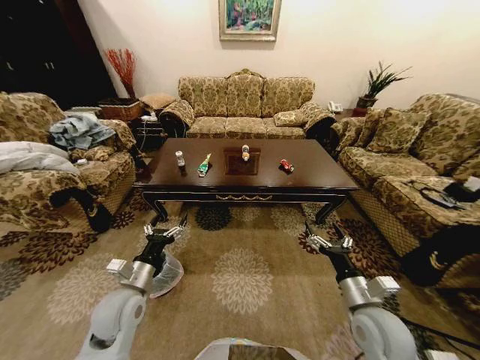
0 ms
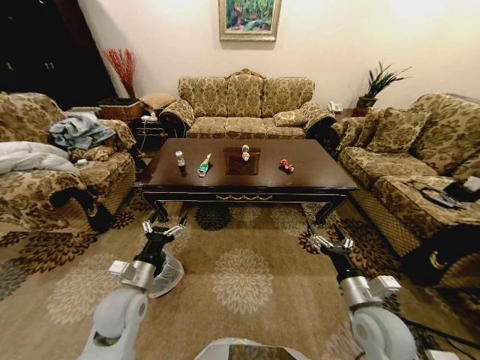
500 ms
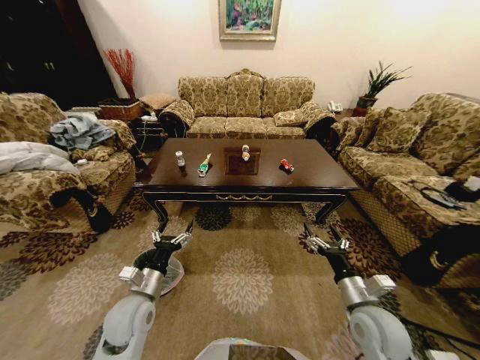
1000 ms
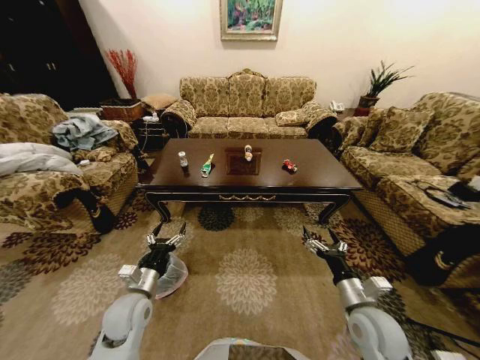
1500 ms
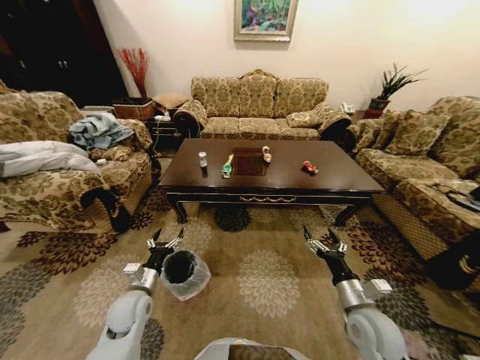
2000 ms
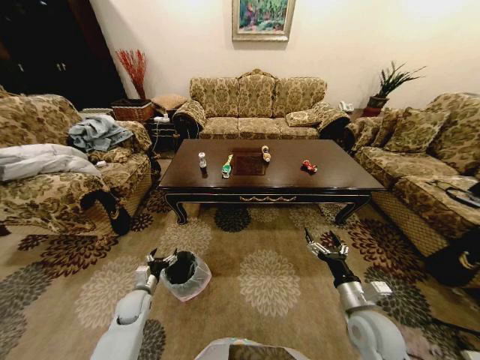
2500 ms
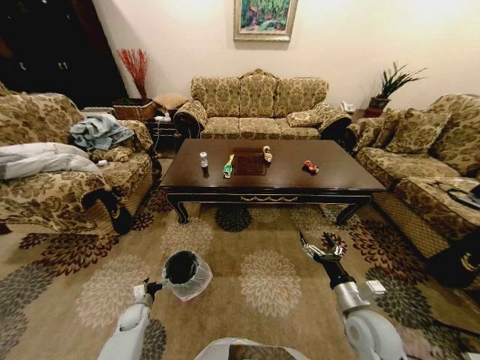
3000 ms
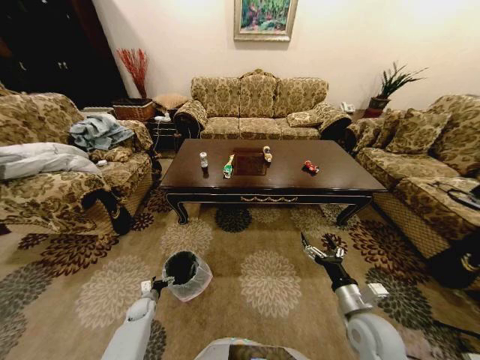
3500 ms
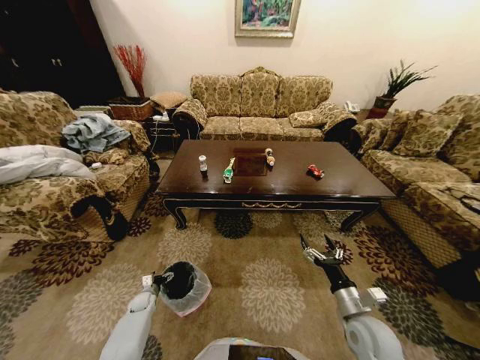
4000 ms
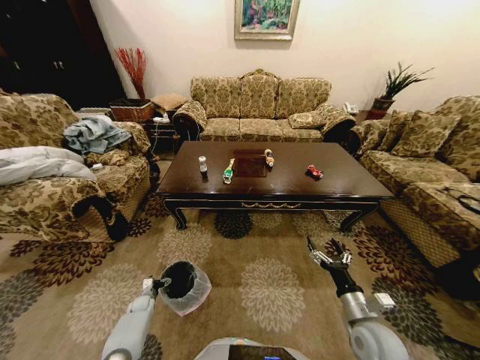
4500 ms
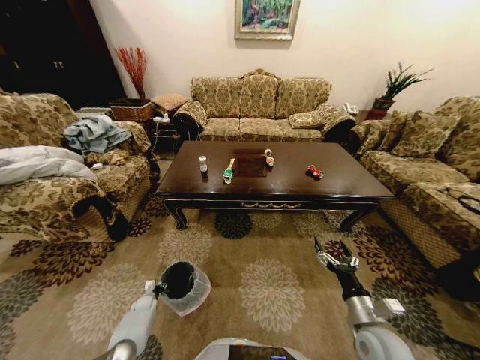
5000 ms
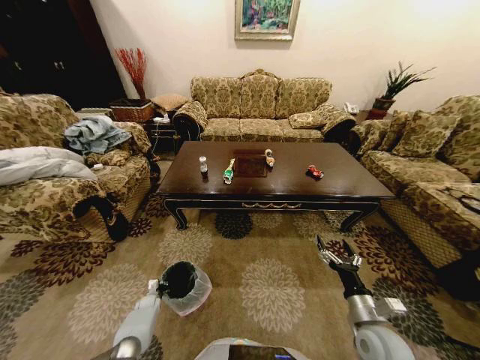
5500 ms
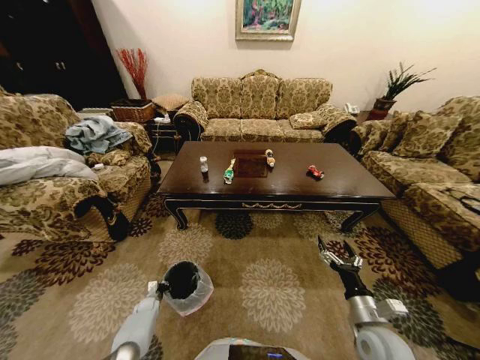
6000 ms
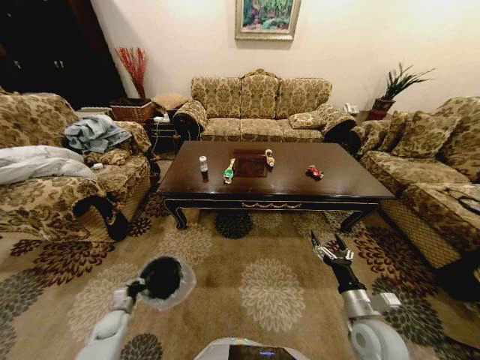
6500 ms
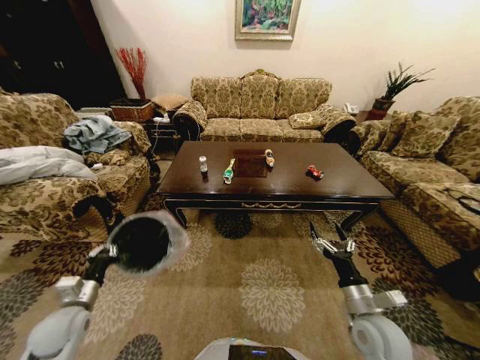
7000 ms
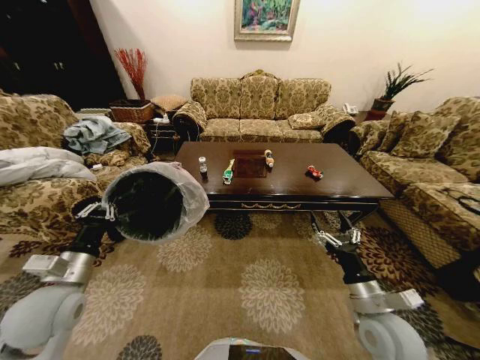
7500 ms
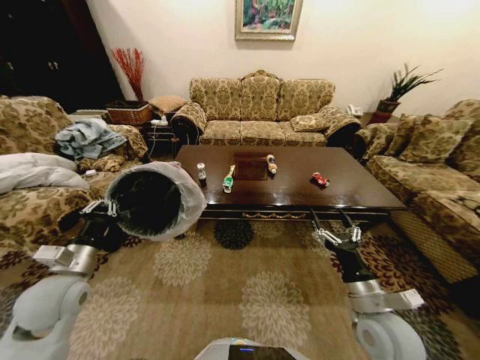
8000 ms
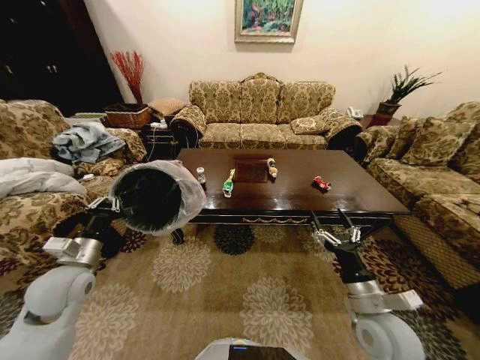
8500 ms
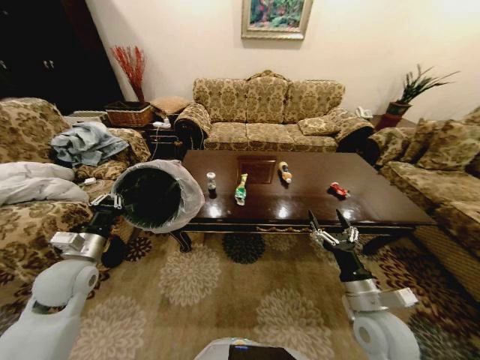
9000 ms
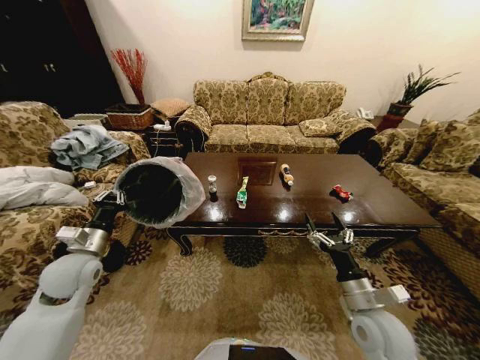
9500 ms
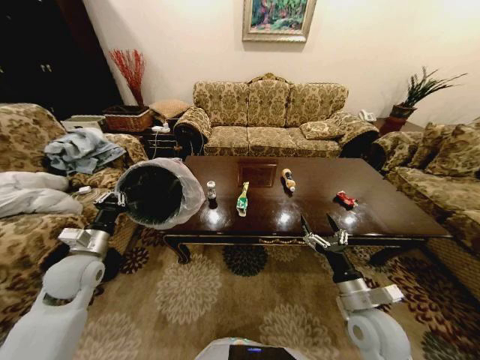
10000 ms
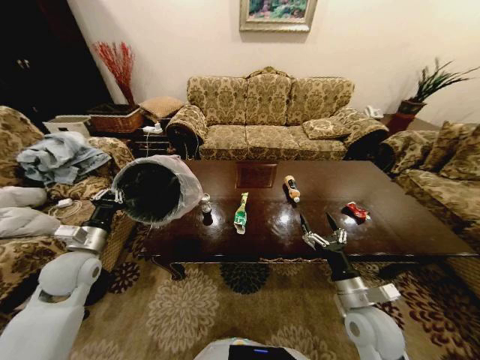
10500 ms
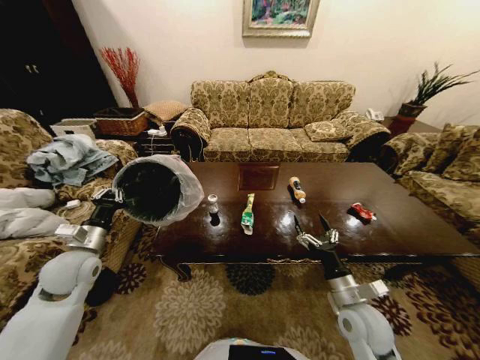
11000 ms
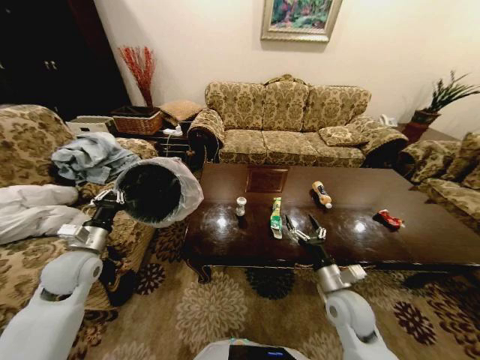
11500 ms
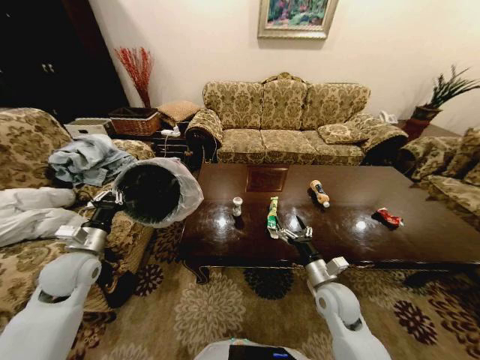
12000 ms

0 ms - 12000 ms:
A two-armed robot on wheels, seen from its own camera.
Task of the whole recording: Move to the front of the table and place the trash on the table into the trash bin.
2000 ms - 4000 ms: The left gripper heads downward, covering approximately 25 cm.
4000 ms - 6000 ms: The left gripper shifts by approximately 5 cm, and closes.
6000 ms - 8000 ms: The left gripper is displaced upward by some 40 cm, while the right gripper goes roughly 10 cm upward.
8000 ms - 10000 ms: The left gripper shifts roughly 5 cm forward.
10000 ms - 12000 ms: The right gripper travels forward by some 5 cm.

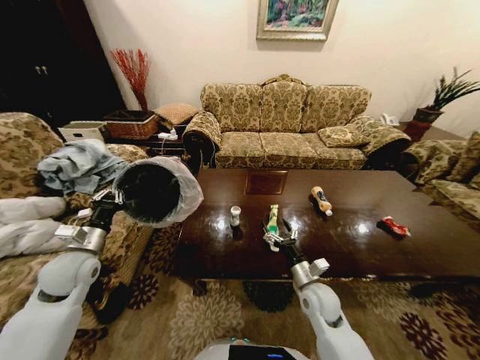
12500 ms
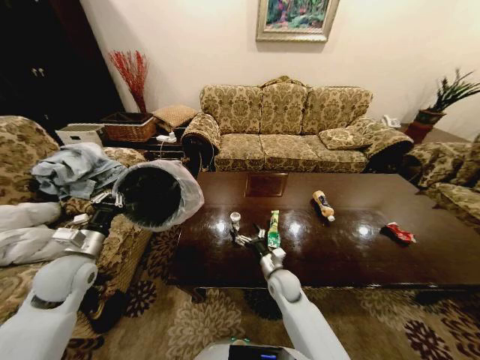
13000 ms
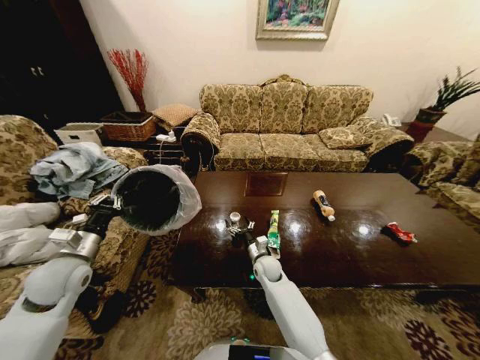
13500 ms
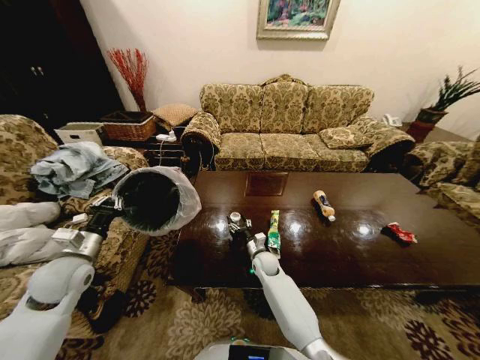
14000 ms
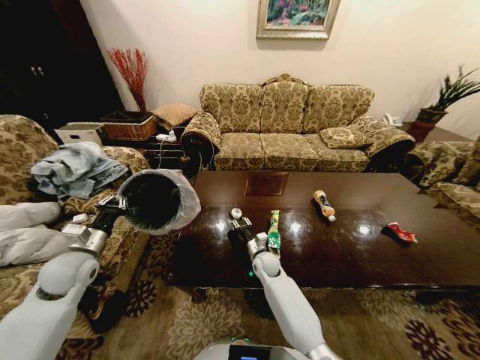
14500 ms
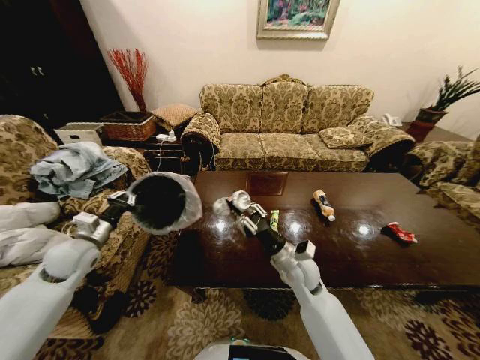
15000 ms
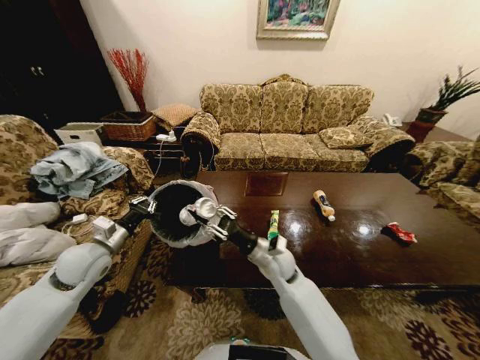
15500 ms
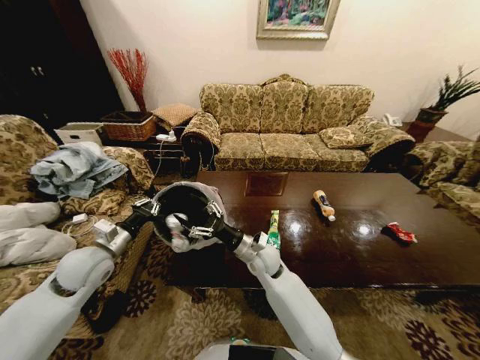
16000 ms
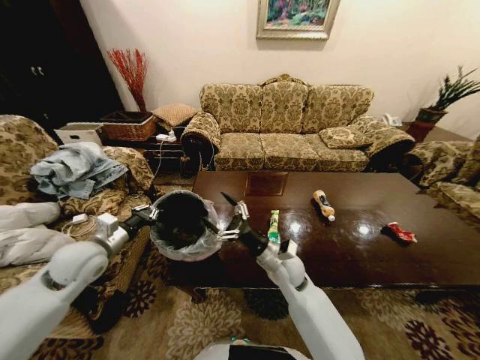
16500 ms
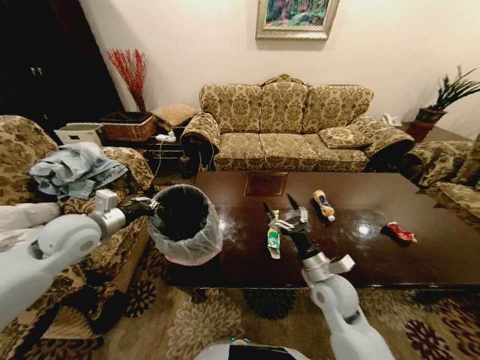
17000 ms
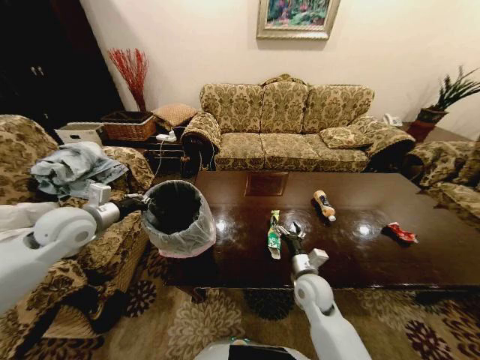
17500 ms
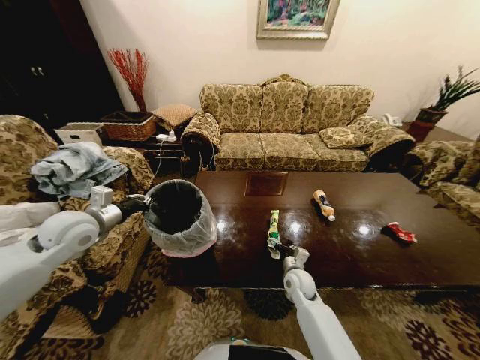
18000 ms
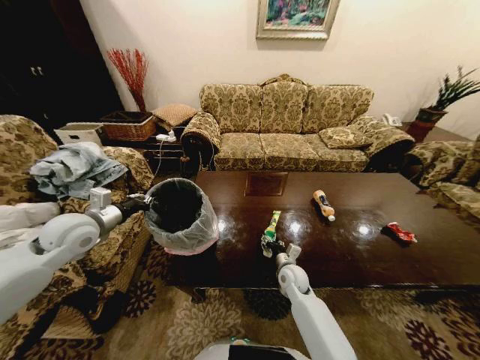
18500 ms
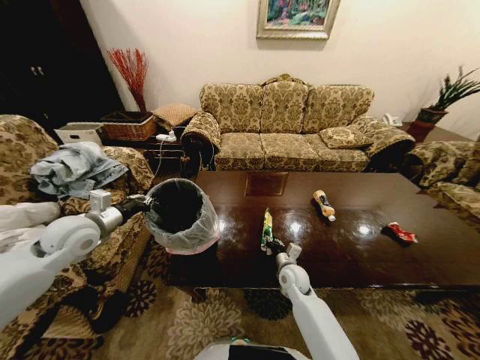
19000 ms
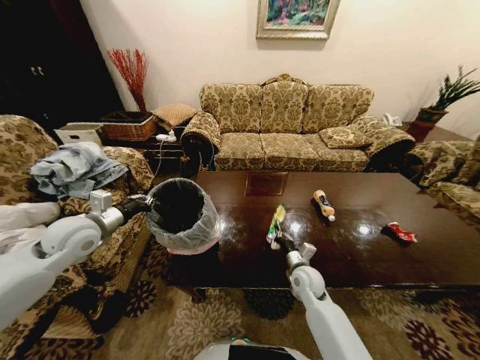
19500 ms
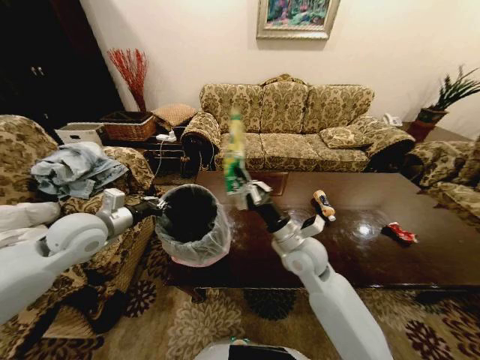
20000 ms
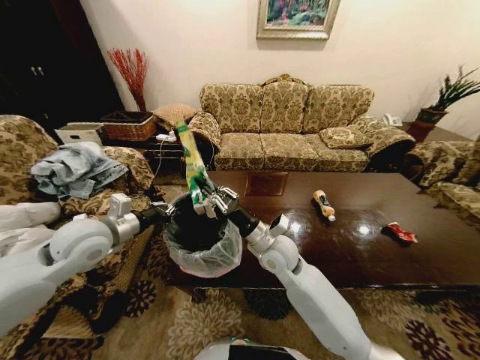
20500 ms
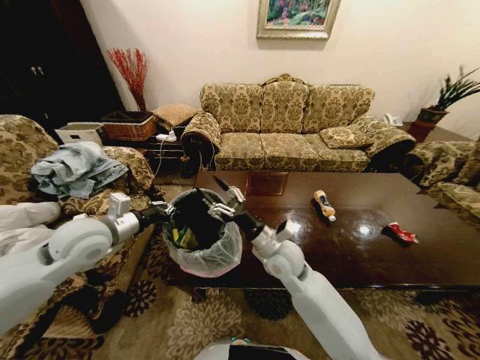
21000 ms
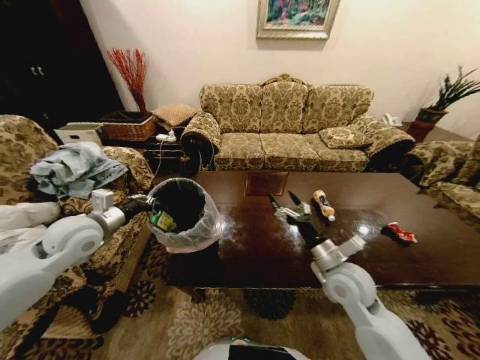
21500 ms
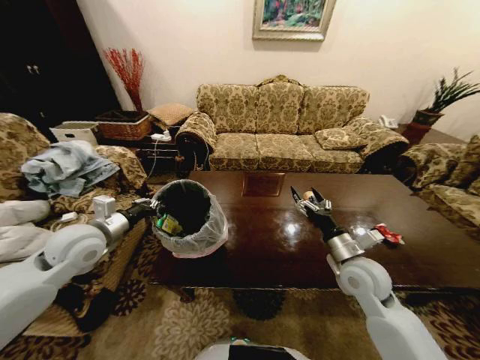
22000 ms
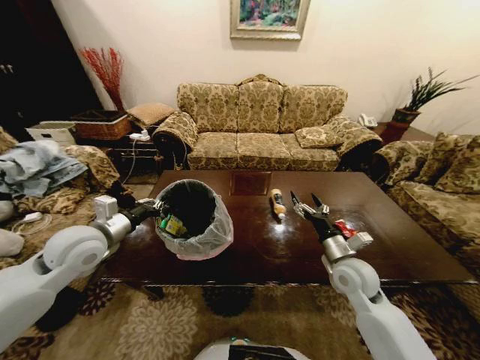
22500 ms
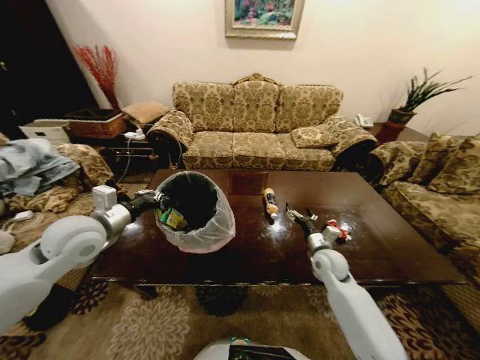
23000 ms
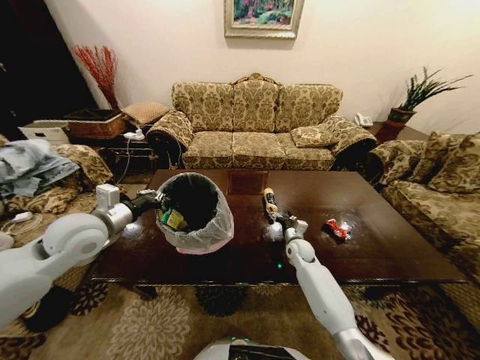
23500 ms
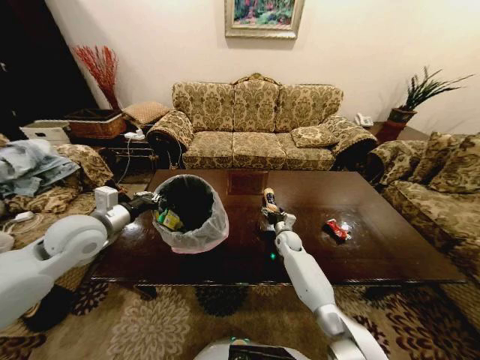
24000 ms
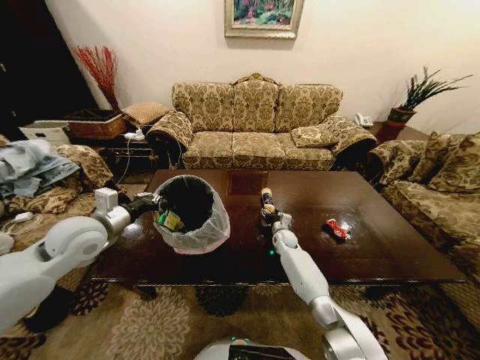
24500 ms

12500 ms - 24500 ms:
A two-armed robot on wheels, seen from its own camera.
Task of the whole recording: Move to the front of the table and place the trash on the table into the trash bin.
12500 ms - 14500 ms: The right gripper shifts approximately 20 cm forward, to the left and downward, and closes up.
14500 ms - 16500 ms: The right gripper goes some 15 cm upward and backward, and opens its fingers, while the left gripper moves roughly 5 cm.
16500 ms - 18500 ms: The right gripper travels downward and to the right by approximately 15 cm. The left gripper moves approximately 5 cm.
18500 ms - 20500 ms: The right gripper moves upward and to the left, approximately 20 cm, and closes up. Meanwhile the left gripper travels to the right by approximately 5 cm.
20500 ms - 22500 ms: The right gripper shifts some 20 cm to the right, and opens its fingers.
22500 ms - 24500 ms: The right gripper goes some 30 cm forward, downward and to the left.

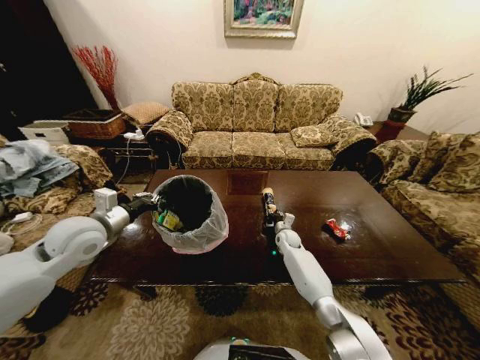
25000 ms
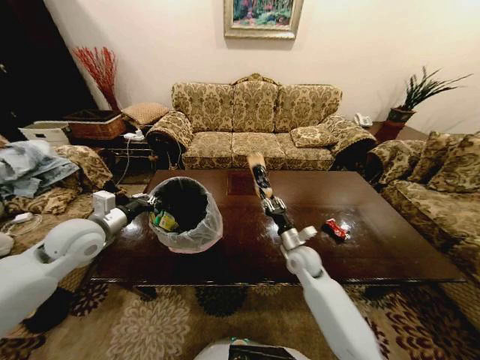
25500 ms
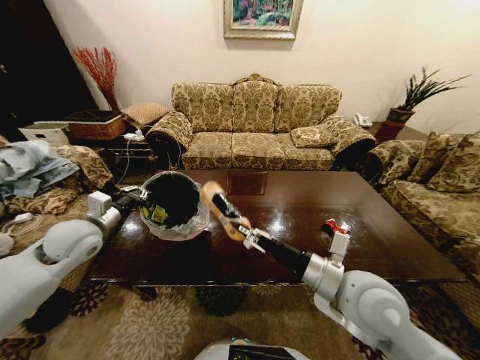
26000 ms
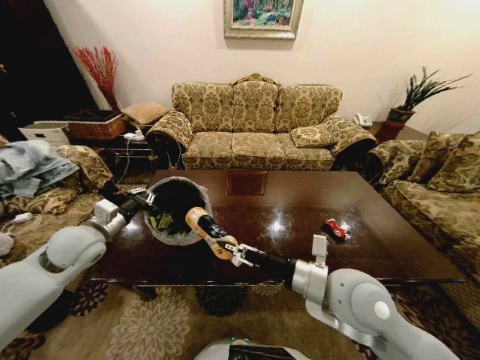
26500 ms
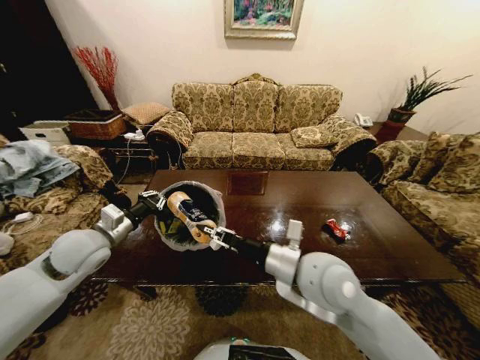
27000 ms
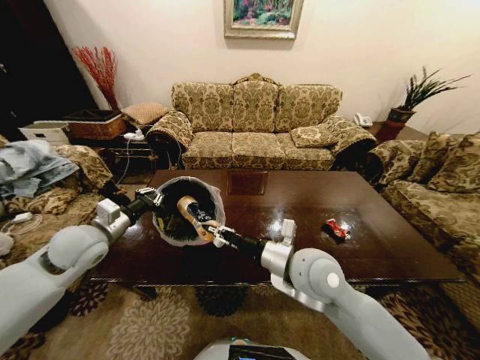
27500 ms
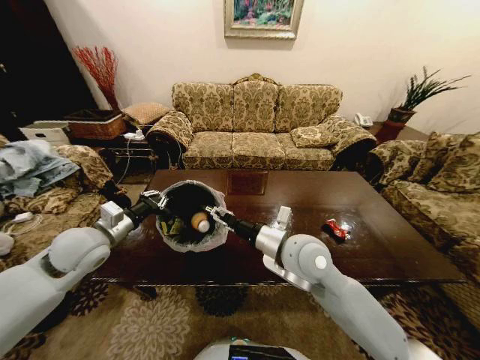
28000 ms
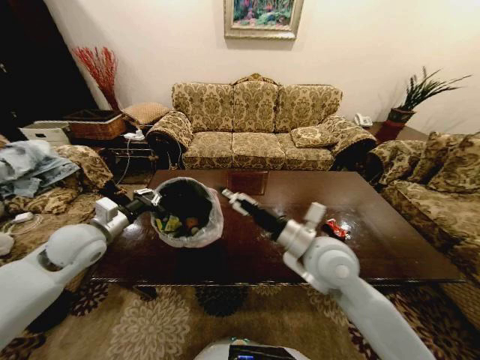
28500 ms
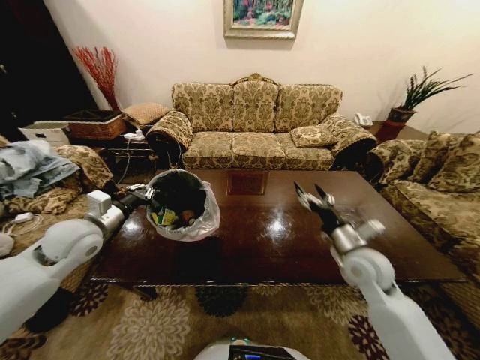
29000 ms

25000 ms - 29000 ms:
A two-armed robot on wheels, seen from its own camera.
Task of the whole recording: Move to the front of the table and place the trash on the table into the trash bin.
25000 ms - 27000 ms: The right gripper is displaced upward and backward by approximately 40 cm.
27000 ms - 29000 ms: The right gripper moves to the right, downward and forward, roughly 20 cm, and opens.
